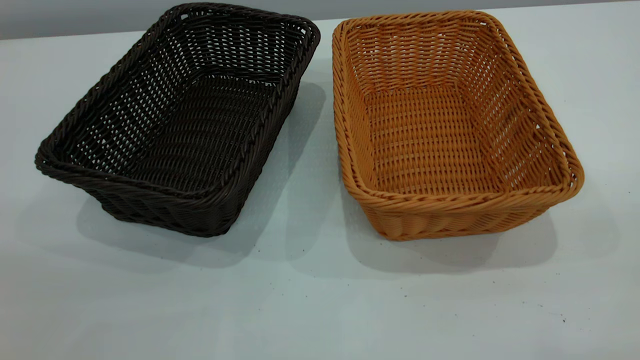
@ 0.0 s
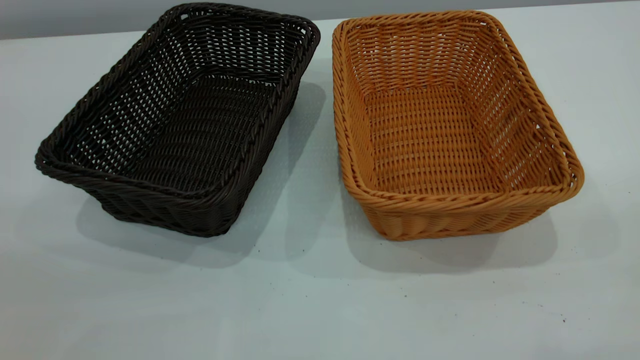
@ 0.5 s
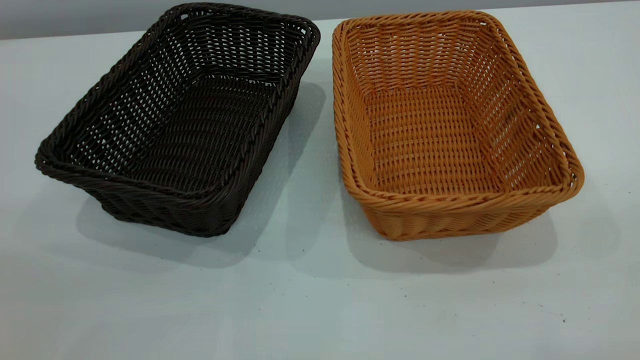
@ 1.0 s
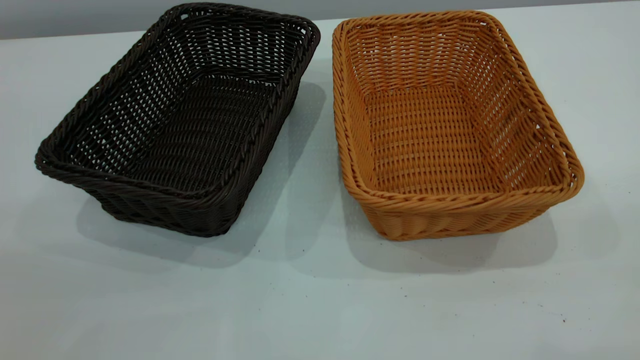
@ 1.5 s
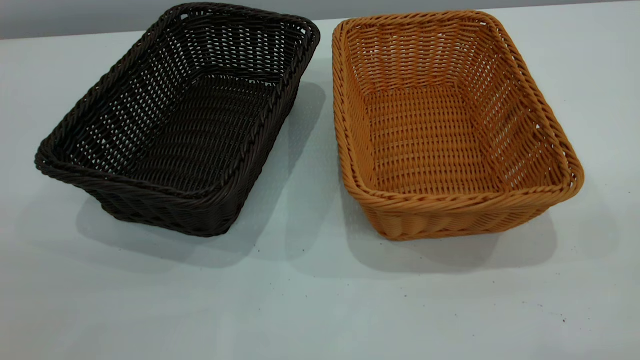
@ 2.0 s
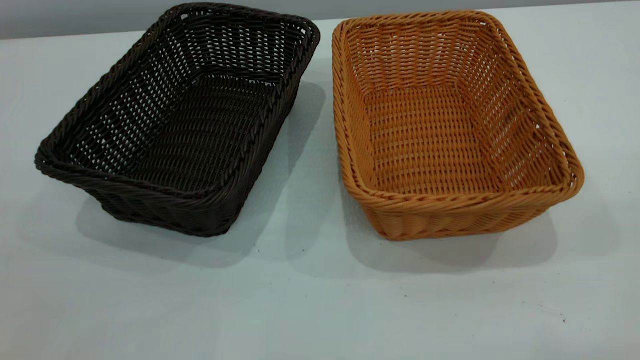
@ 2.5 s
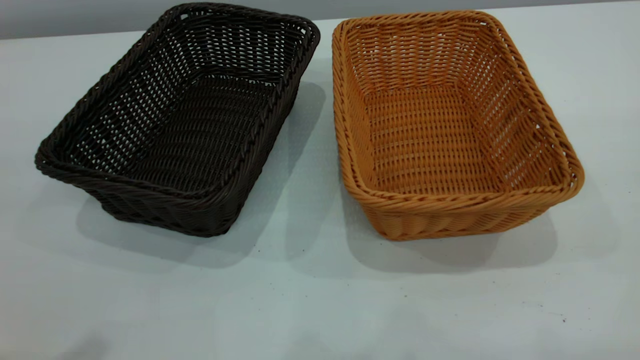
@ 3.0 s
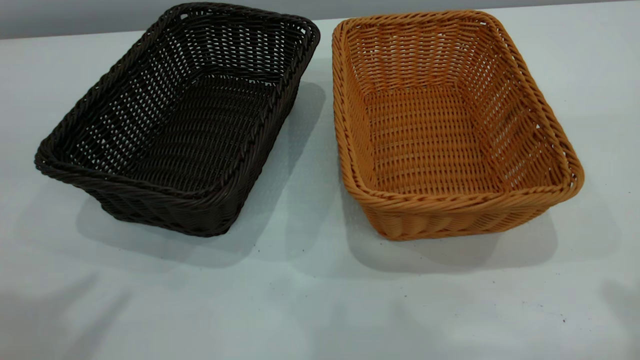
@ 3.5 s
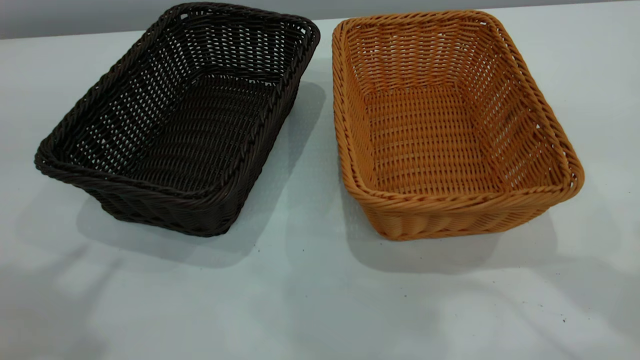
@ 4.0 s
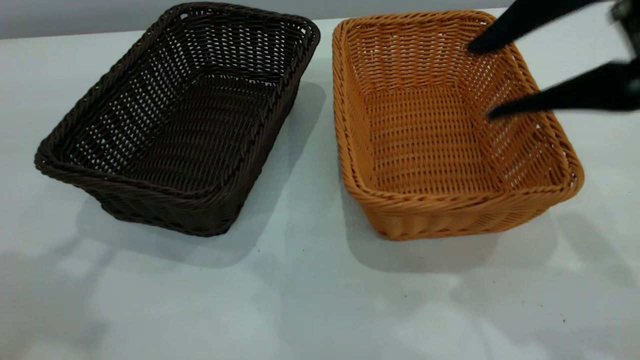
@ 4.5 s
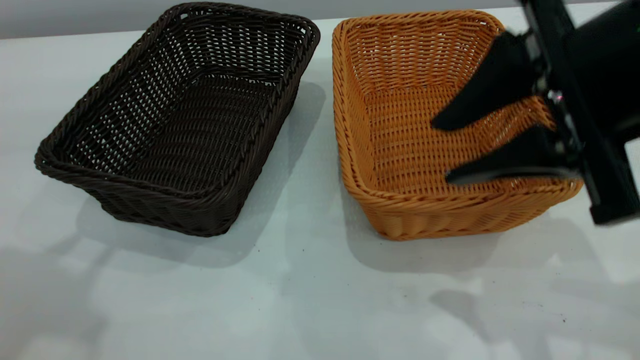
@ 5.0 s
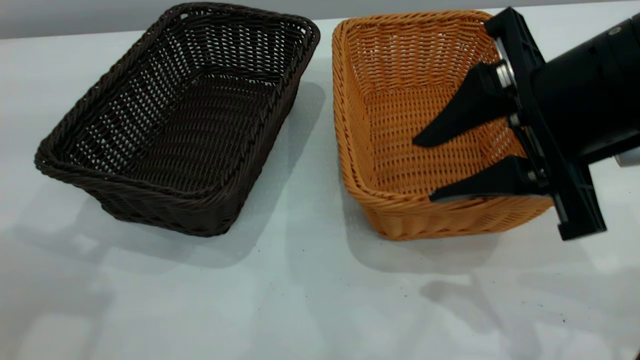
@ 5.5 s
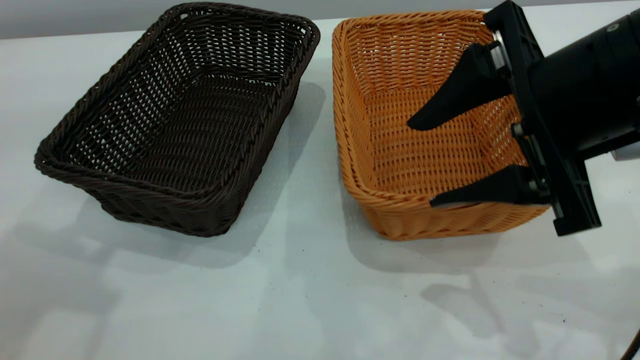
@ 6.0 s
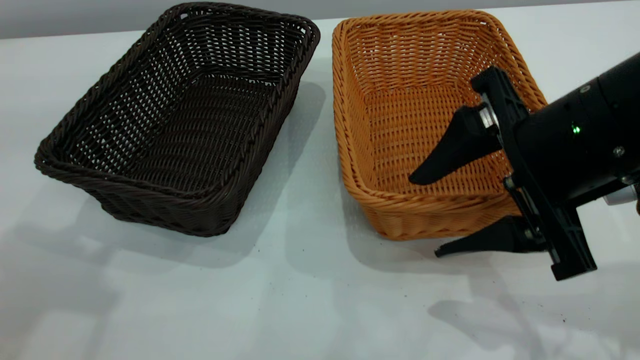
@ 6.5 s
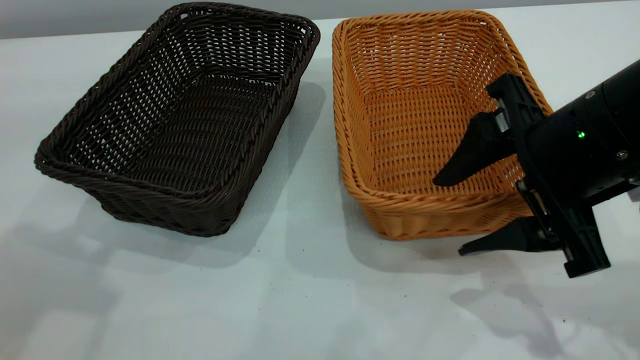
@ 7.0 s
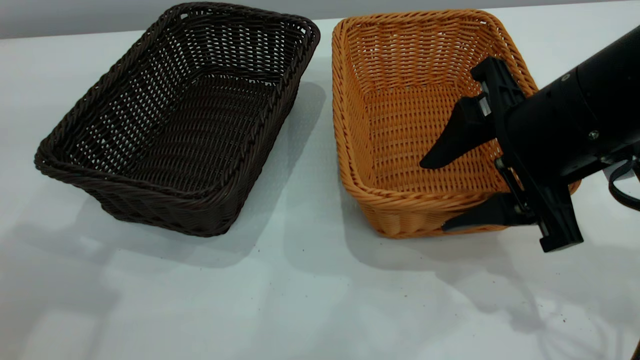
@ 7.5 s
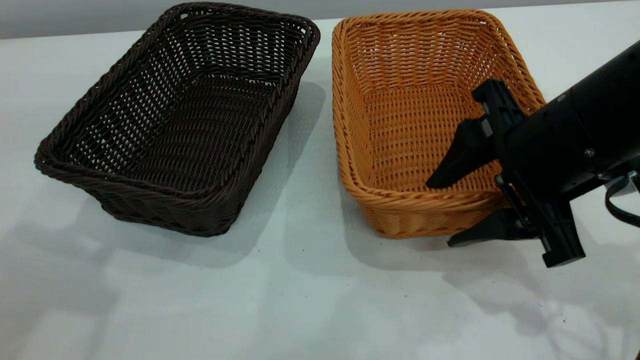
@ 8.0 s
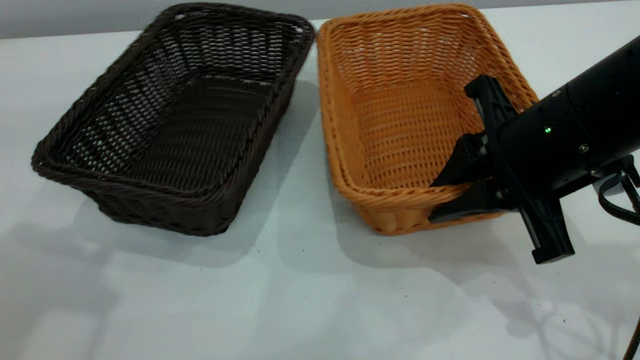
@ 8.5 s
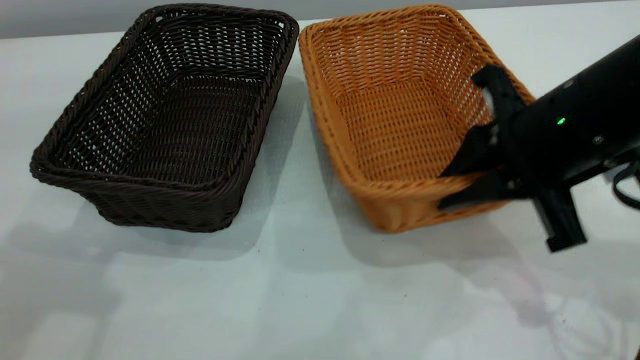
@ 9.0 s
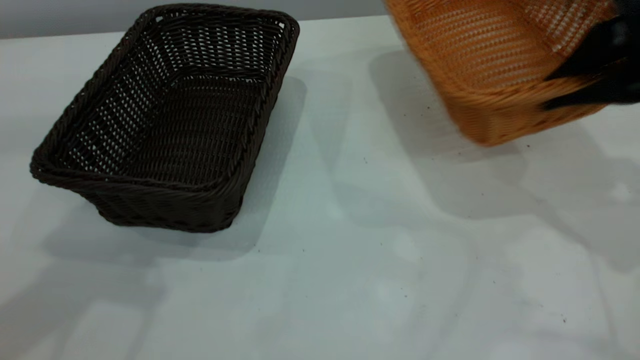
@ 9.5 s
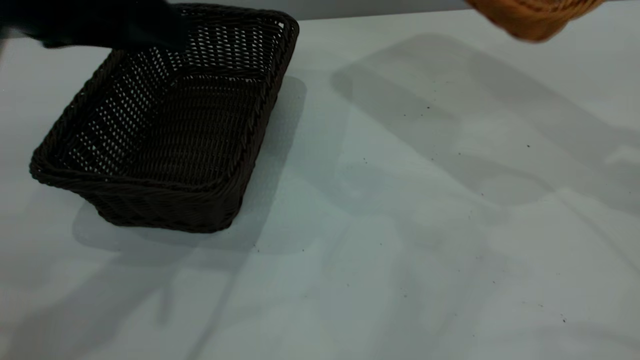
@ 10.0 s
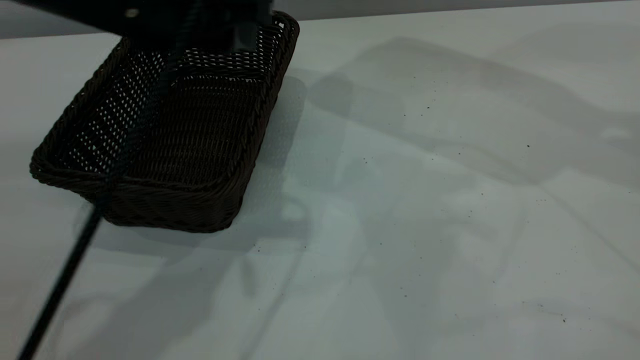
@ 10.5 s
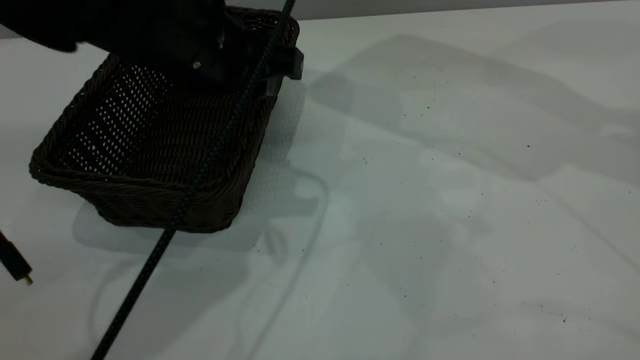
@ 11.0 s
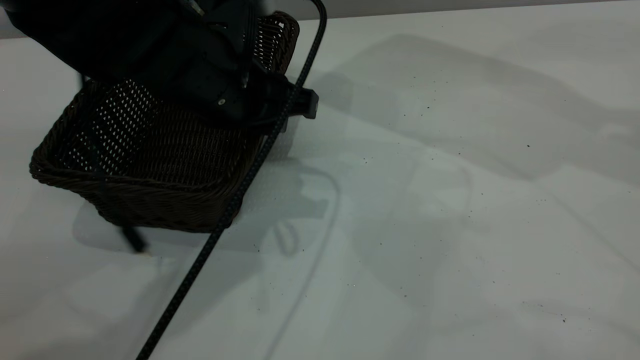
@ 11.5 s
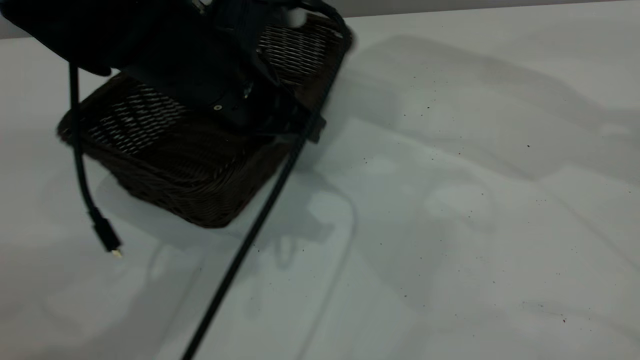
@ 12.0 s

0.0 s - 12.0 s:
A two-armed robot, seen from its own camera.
Task of the whole recording: the left gripper grasp the black basket and place it in the center of the table, the right gripper grasp the brown basket and place it inside the black one.
Step, 0.0 s - 9.0 s: Pick up the light basket with the right gripper.
4.0 s - 6.0 s: The right gripper goes some 15 cm downward and to the left, and opens.
6.0 s - 8.0 s: The right gripper is displaced downward by approximately 5 cm.
8.0 s - 10.0 s: The right gripper is displaced upward and to the right by about 20 cm, and closes, while the left gripper heads to the right and downward, covering about 15 cm.
10.0 s - 12.0 s: The right gripper shifts about 5 cm upward, while the left gripper is displaced downward and to the right by roughly 15 cm, and closes.

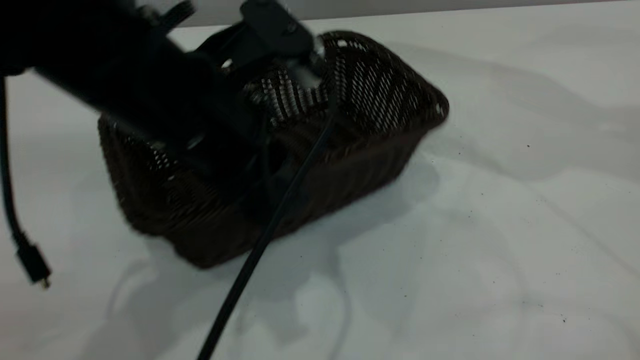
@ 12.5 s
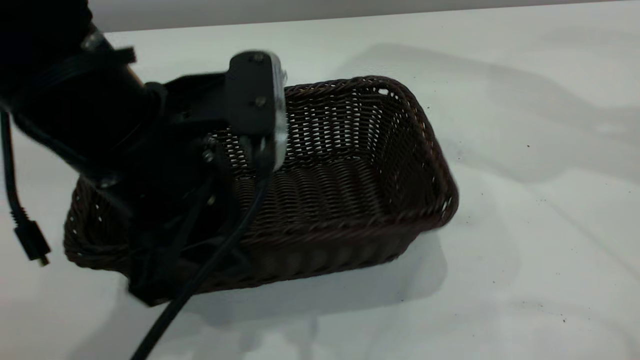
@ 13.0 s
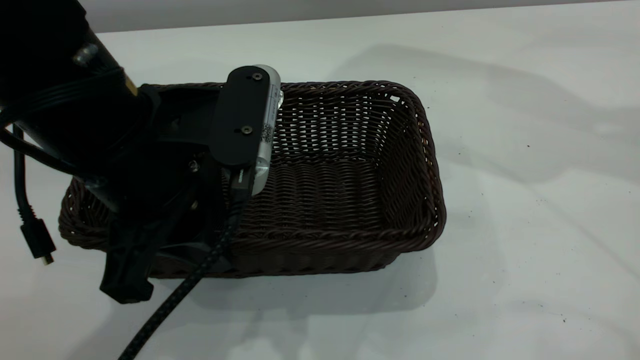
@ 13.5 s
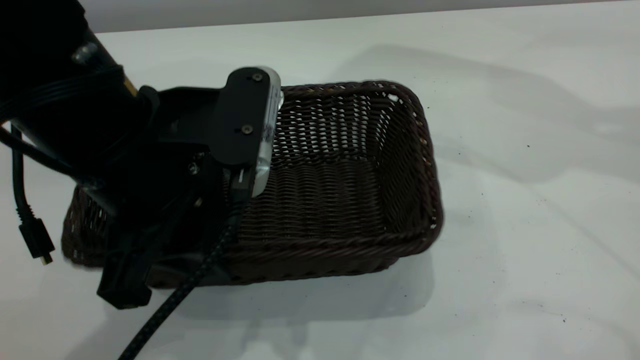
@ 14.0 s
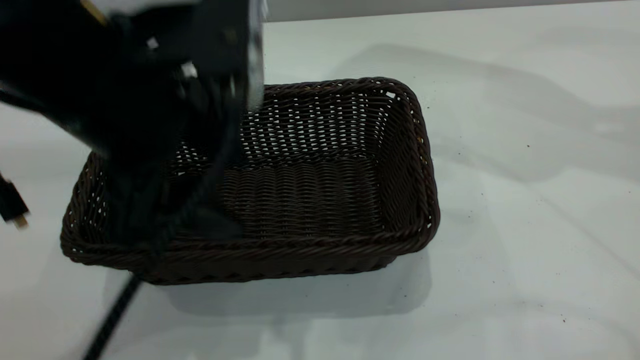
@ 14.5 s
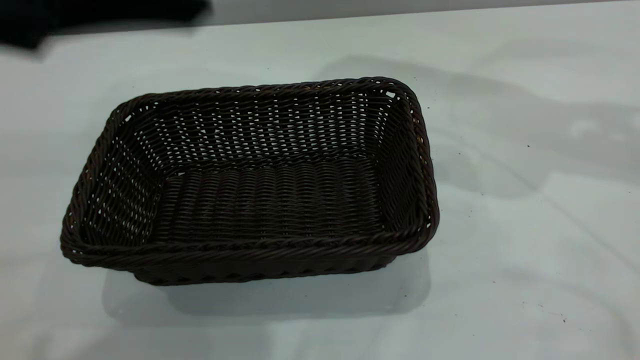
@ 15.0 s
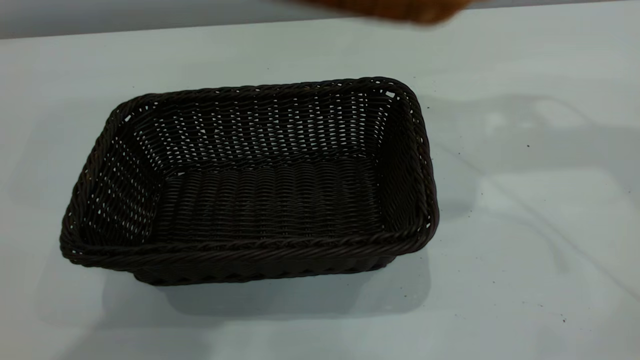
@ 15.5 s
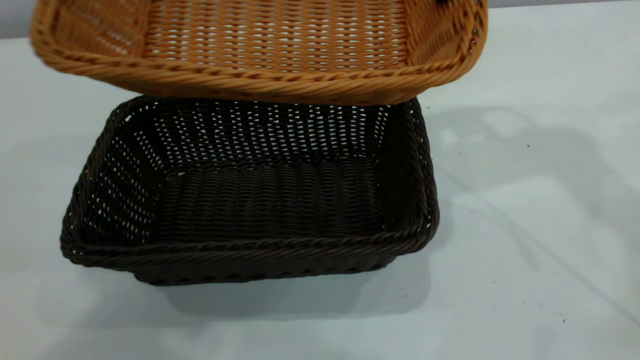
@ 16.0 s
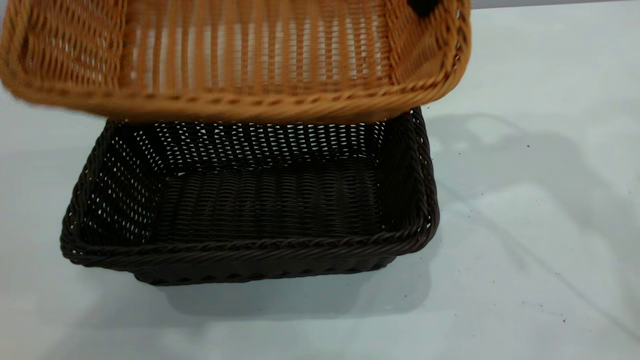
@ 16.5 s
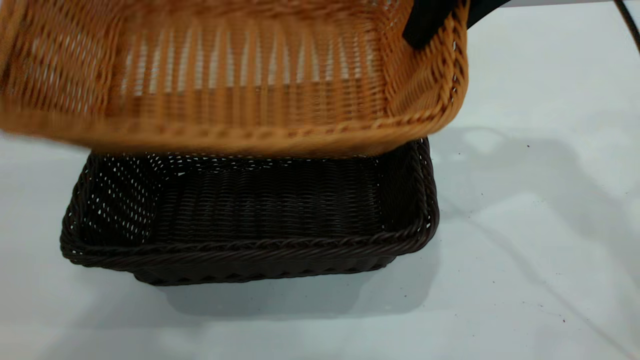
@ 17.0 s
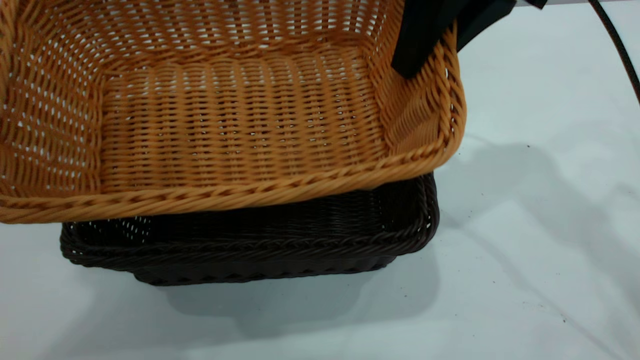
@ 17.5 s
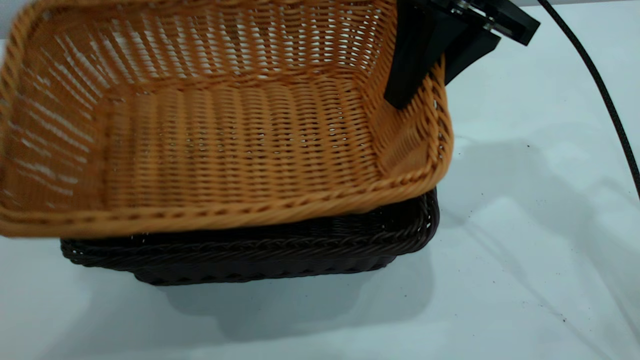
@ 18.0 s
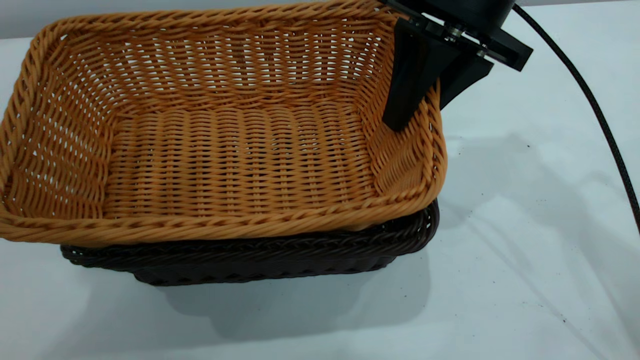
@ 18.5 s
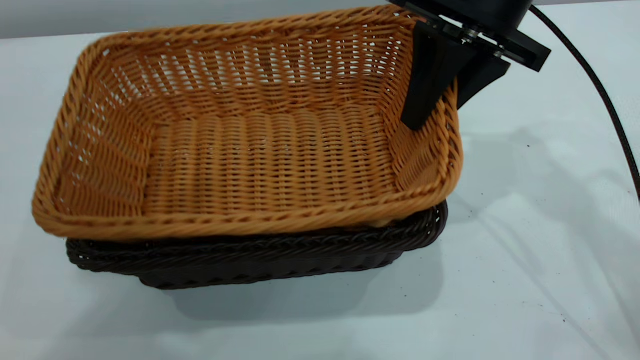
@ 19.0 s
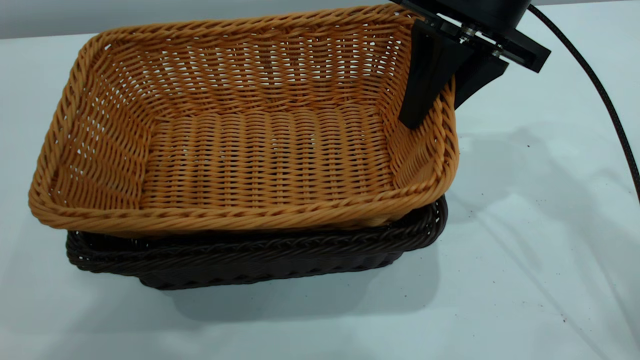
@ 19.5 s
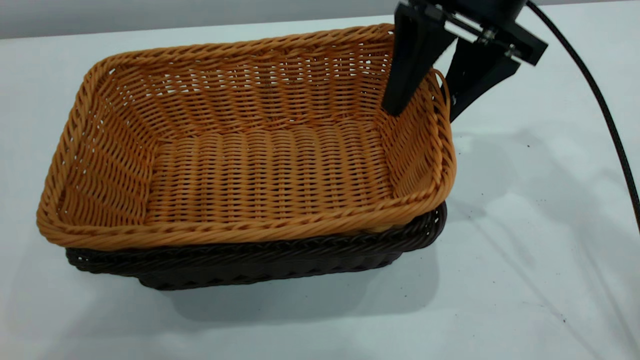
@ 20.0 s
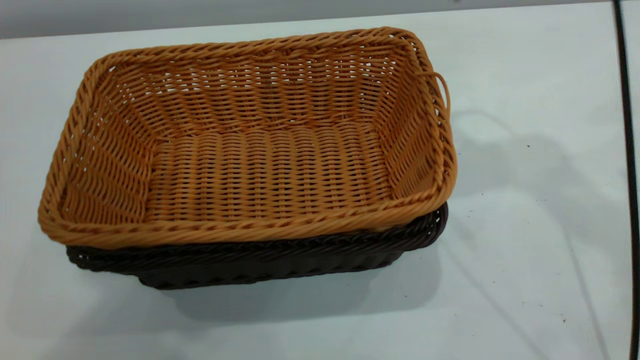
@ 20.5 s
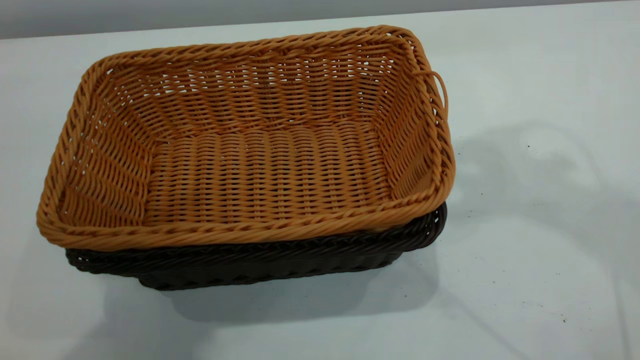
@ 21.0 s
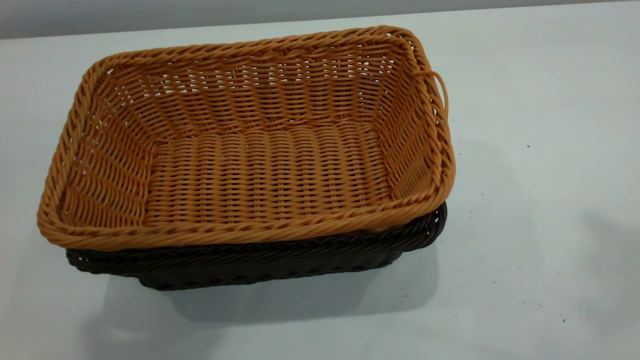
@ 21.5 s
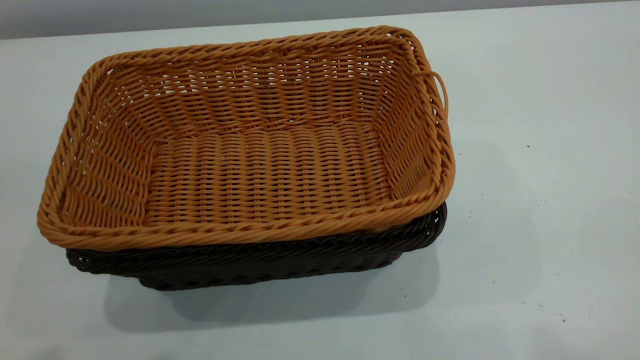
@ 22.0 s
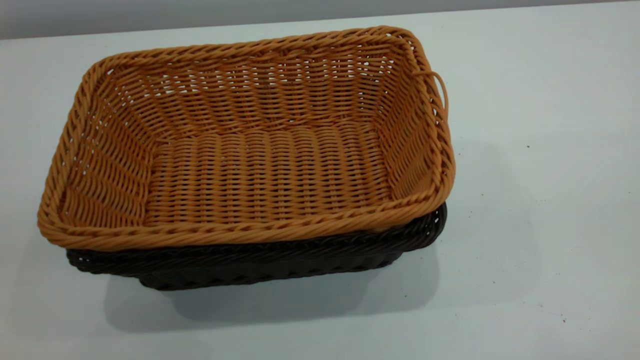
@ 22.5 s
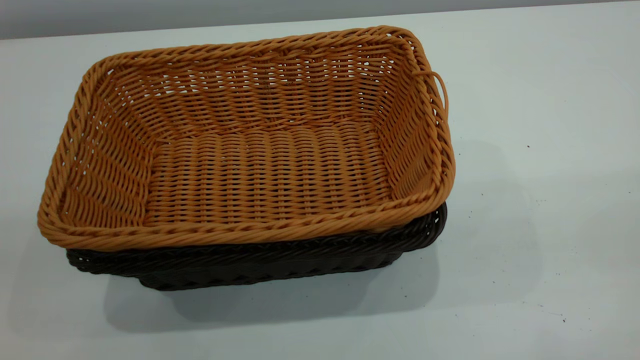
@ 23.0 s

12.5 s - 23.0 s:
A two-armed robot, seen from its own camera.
Task of the whole recording: the left gripper grasp the black basket and place it in the center of the table, the right gripper grasp the brown basket and place it inside the black one.
Step, 12.5 s - 14.5 s: Move the dark basket to the center of view.
Step, 15.0 s - 20.0 s: Place the light basket on the dark basket.
12.5 s - 14.5 s: The left gripper goes some 5 cm upward, and opens its fingers.
14.5 s - 16.5 s: The right gripper travels to the left and downward by about 15 cm, while the left gripper goes some 20 cm upward.
16.5 s - 19.0 s: The right gripper is displaced downward by about 5 cm.
19.0 s - 21.0 s: The right gripper moves upward, approximately 25 cm, and opens.
21.0 s - 23.0 s: The left gripper heads backward and to the left, covering some 15 cm, and closes up.
